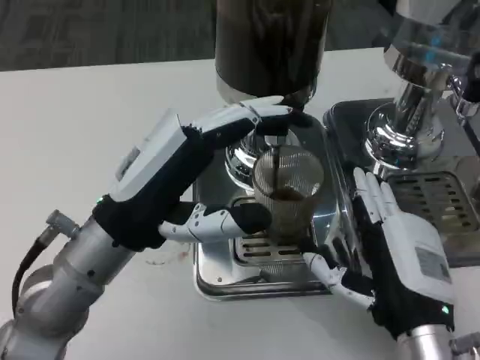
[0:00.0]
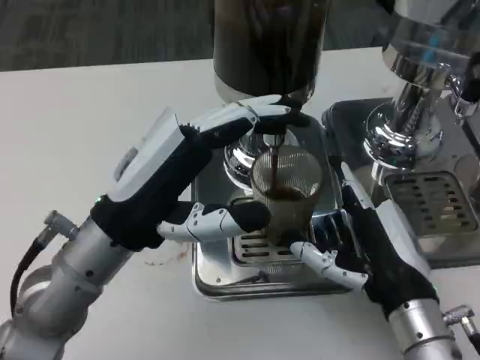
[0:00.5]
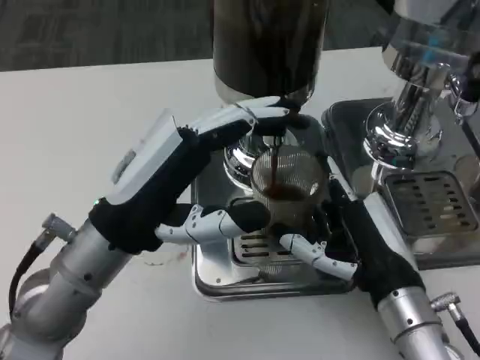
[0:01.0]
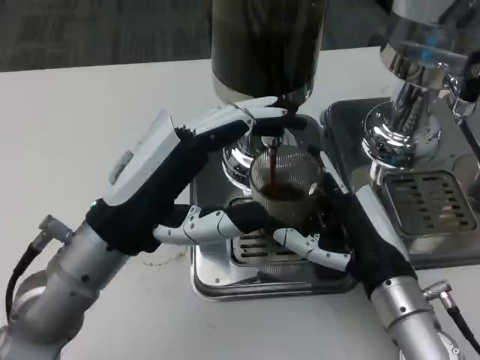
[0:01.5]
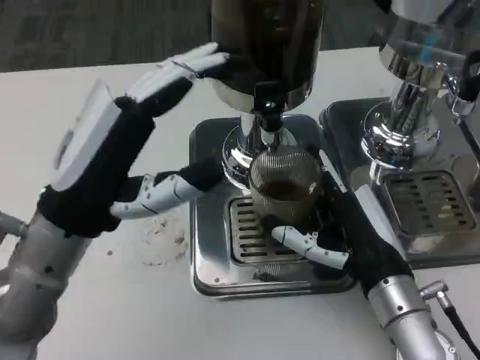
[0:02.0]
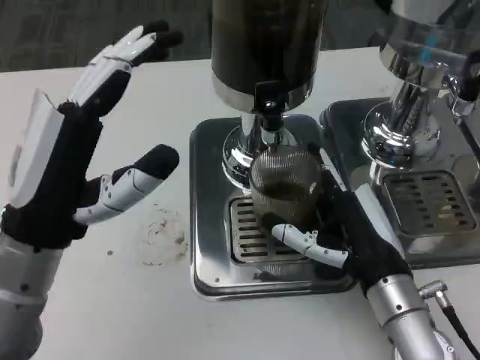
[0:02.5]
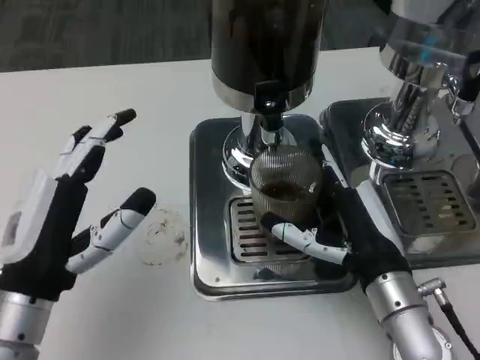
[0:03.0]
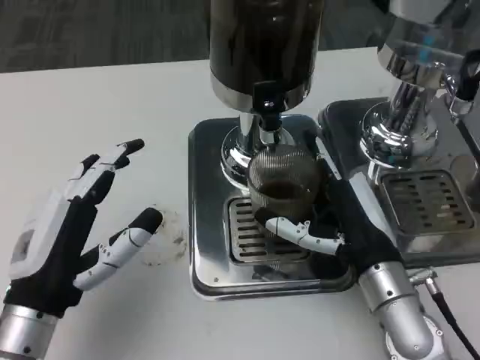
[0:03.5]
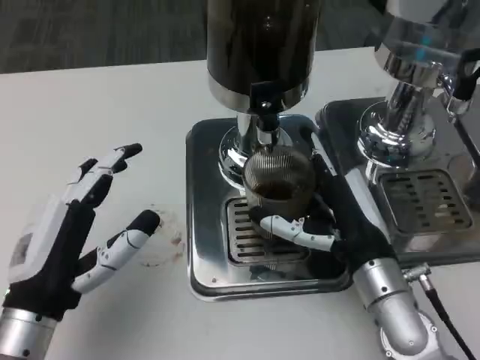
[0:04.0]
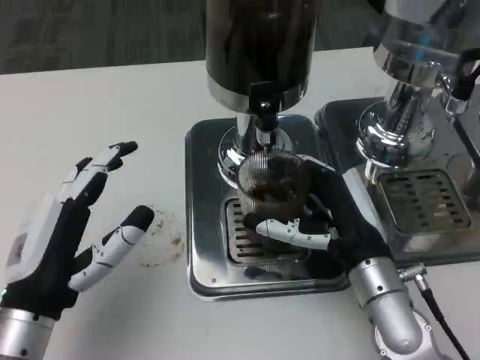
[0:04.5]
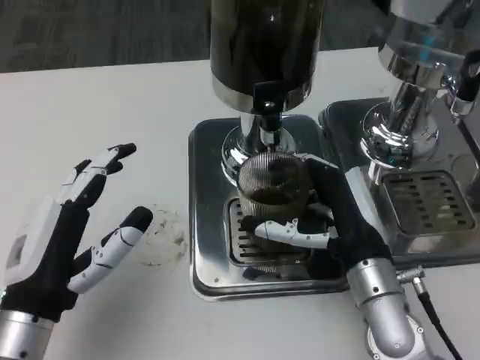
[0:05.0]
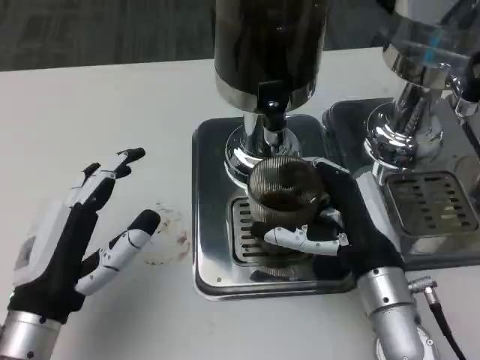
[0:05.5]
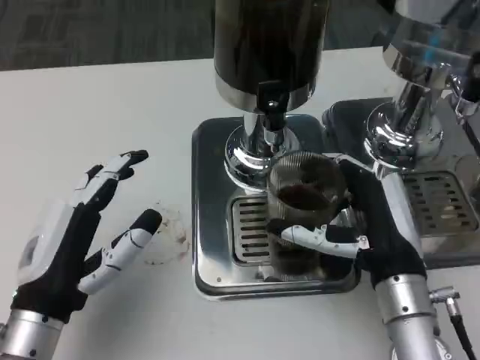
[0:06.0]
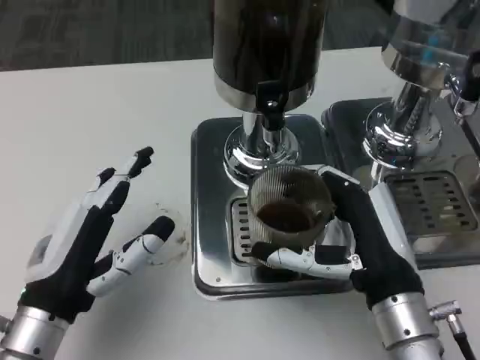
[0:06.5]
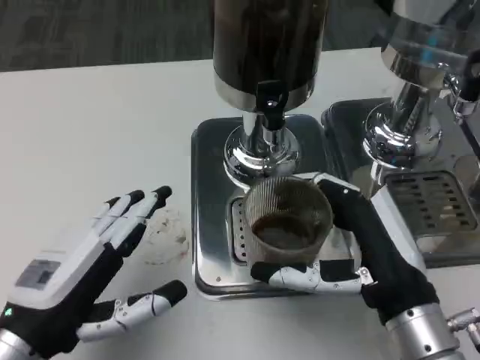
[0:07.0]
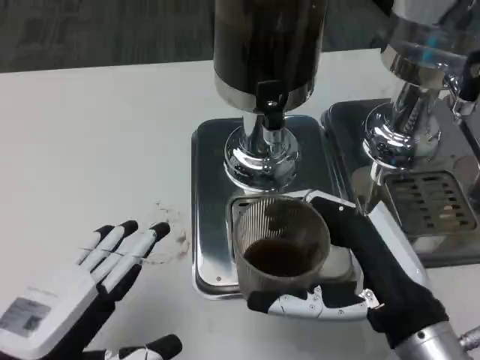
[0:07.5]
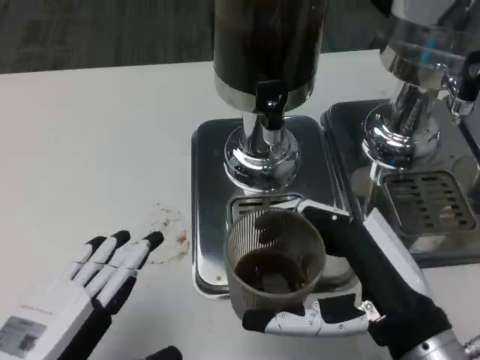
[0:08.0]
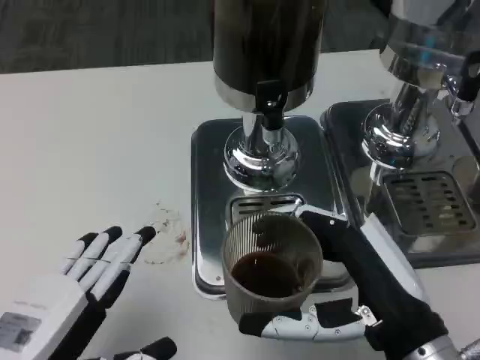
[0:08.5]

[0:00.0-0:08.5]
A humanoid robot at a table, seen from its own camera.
Task of the whole recording: Grasp the cup under the faucet to collect the drink, then remove the cup.
0.0 to 2.0 s: The right hand is displaced forward by approximately 5 cm.
2.0 to 4.0 s: The left hand is displaced downward and backward by roughly 10 cm.
4.0 to 6.5 s: The right hand heads backward, covering about 5 cm.
6.5 to 8.5 s: The left hand heads backward, covering some 10 cm; the right hand is displaced backward by about 5 cm.

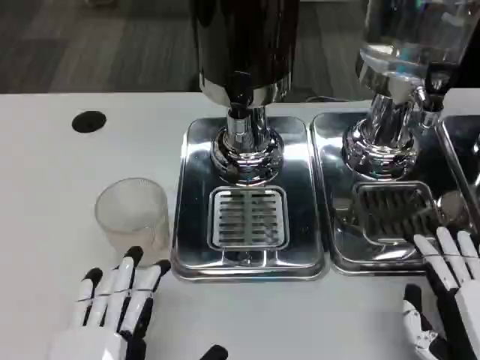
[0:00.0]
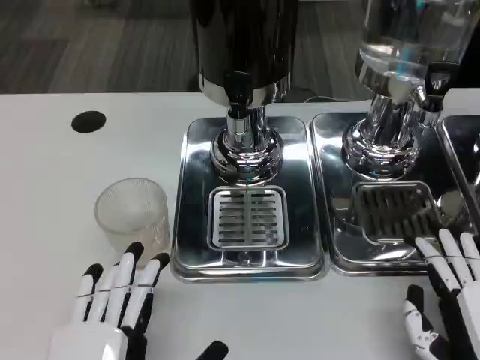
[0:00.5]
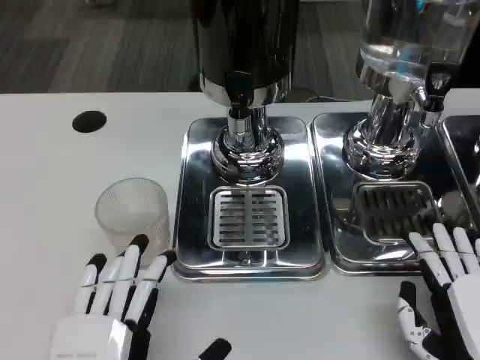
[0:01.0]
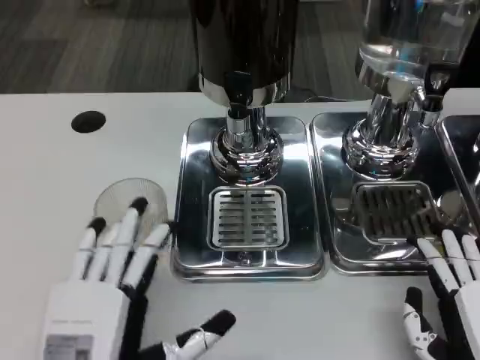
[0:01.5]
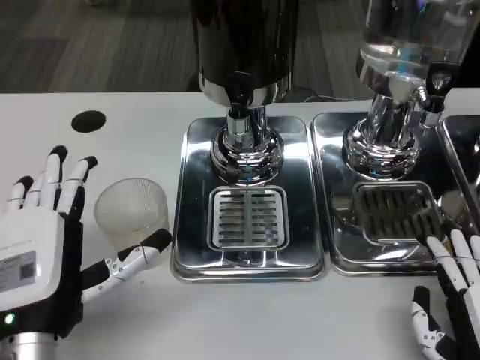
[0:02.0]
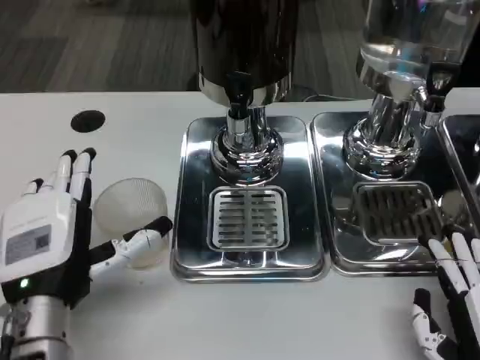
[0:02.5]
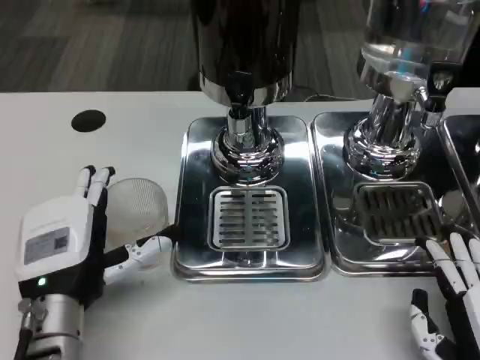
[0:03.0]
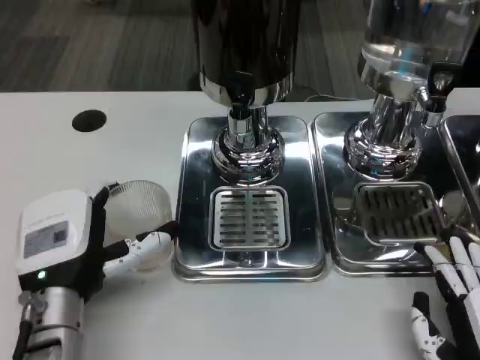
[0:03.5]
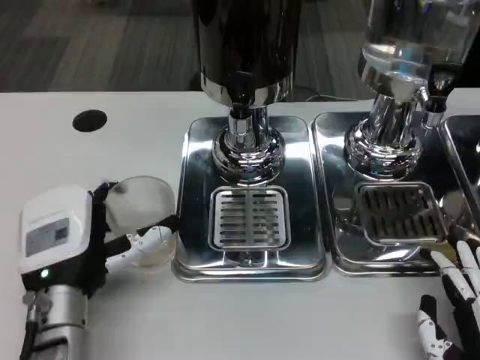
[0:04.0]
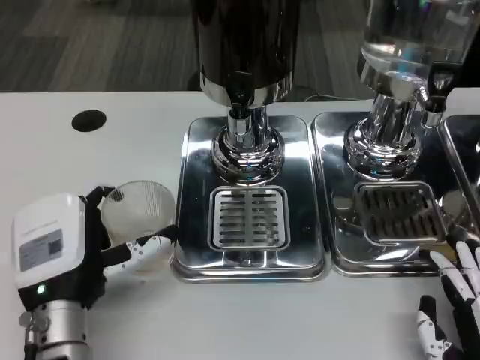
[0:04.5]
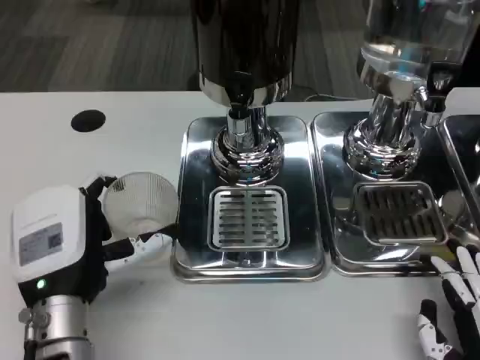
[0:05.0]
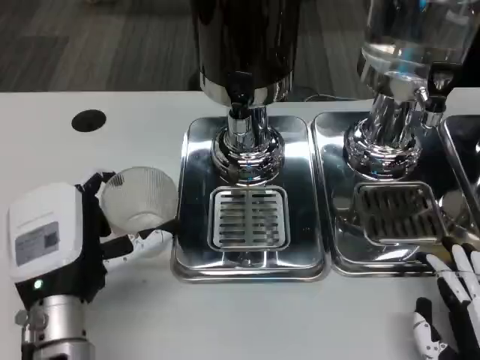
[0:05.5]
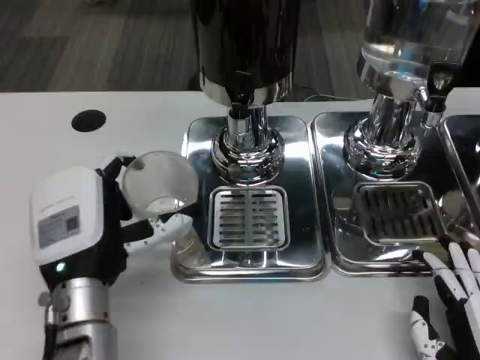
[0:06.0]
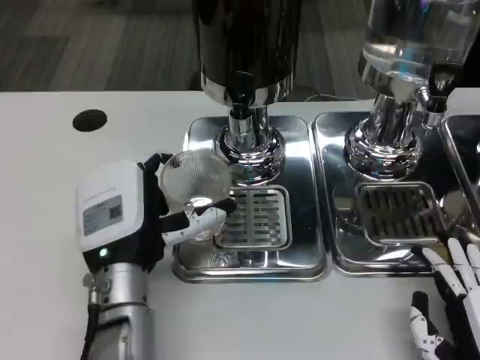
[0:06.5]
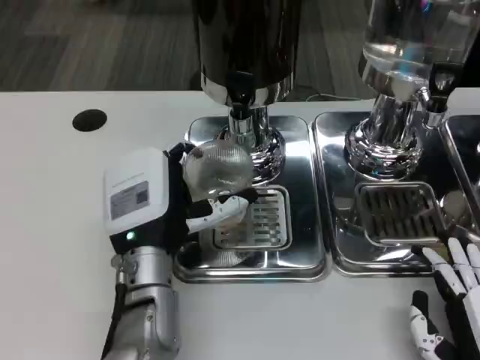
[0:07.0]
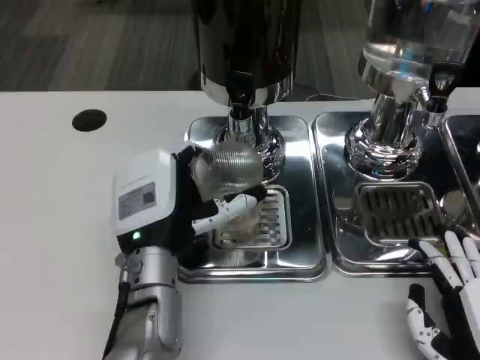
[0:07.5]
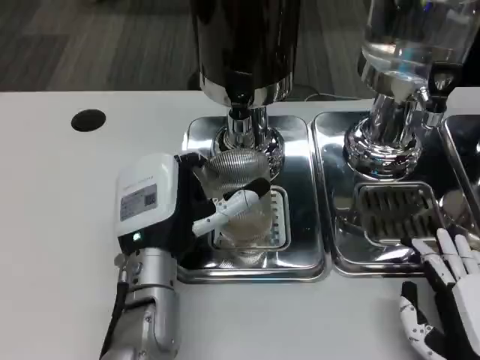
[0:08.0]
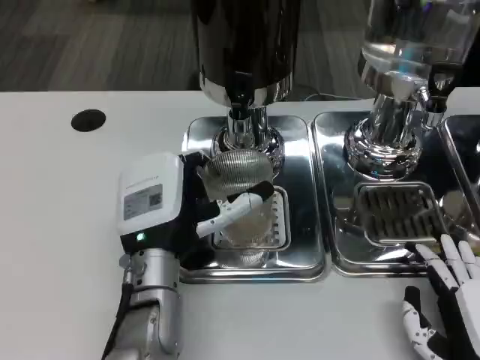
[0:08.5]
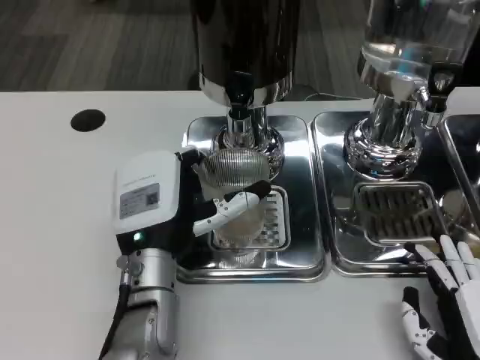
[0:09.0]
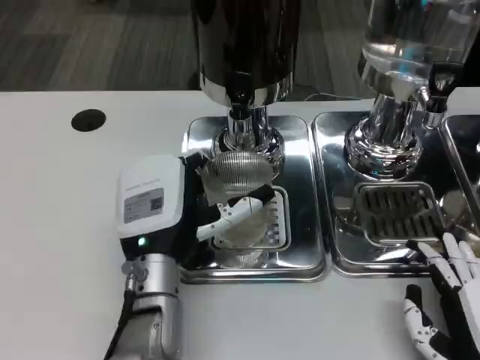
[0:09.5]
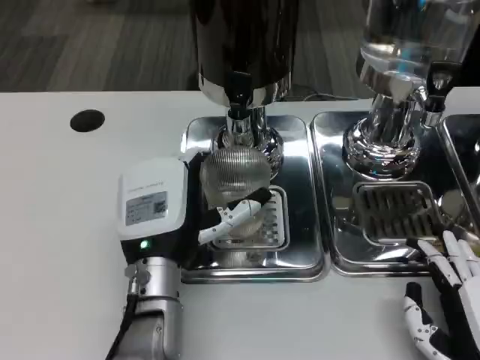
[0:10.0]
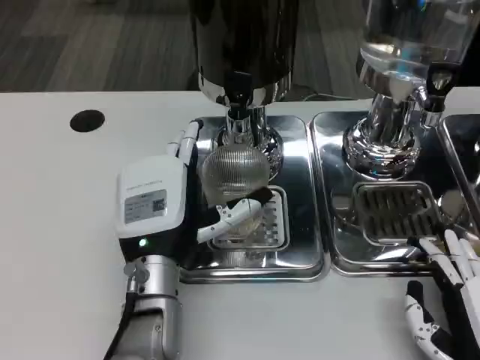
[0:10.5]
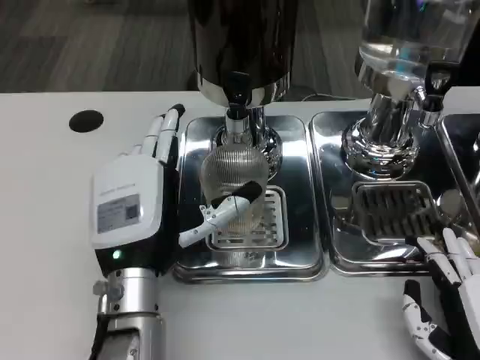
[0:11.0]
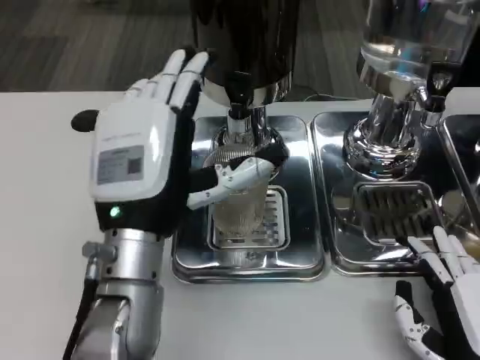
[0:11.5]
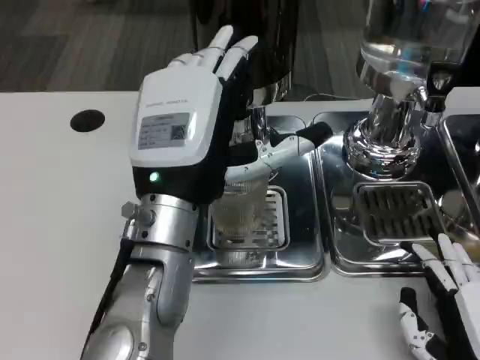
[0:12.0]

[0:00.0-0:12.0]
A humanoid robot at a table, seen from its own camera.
Task of the whole recording: Grasp the cup under the faucet to collect the drink, then remove the cup.
0.0 to 2.0 s: The left hand heads forward, covering approximately 10 cm.
2.0 to 4.0 s: The left hand ends up roughly 5 cm from where it was.
4.0 to 6.0 s: The hands move only a little.
6.0 to 8.0 s: The left hand moves about 5 cm.
8.0 to 10.0 s: The hands stay close to where they were, moving slightly.
10.0 to 12.0 s: The left hand shifts roughly 10 cm upward.

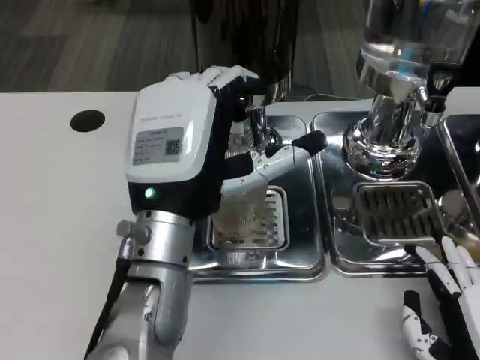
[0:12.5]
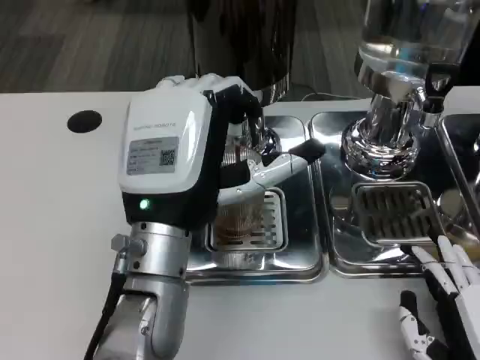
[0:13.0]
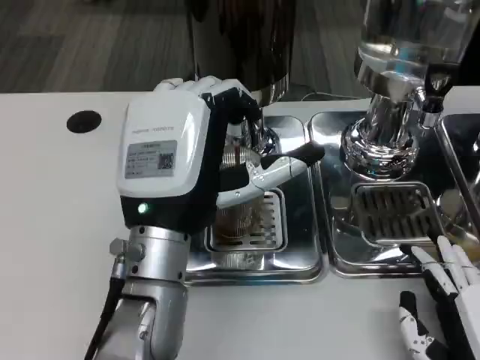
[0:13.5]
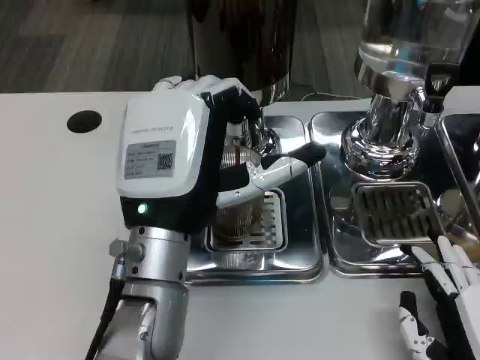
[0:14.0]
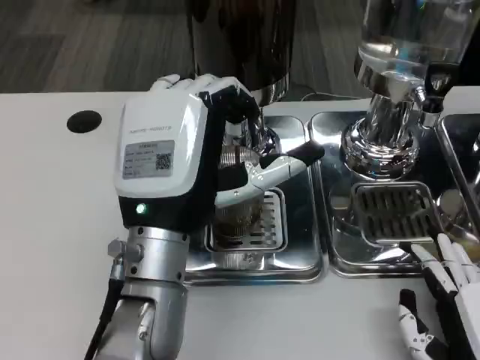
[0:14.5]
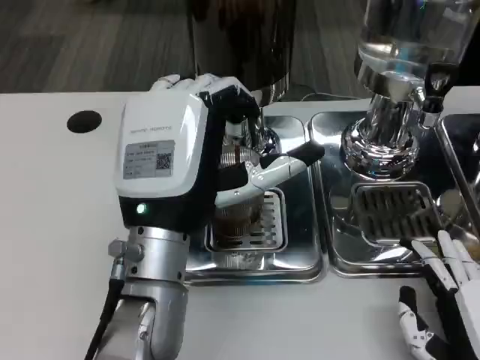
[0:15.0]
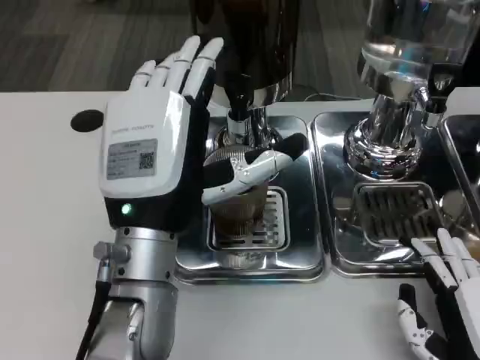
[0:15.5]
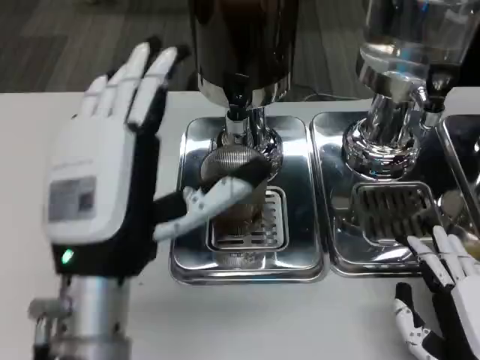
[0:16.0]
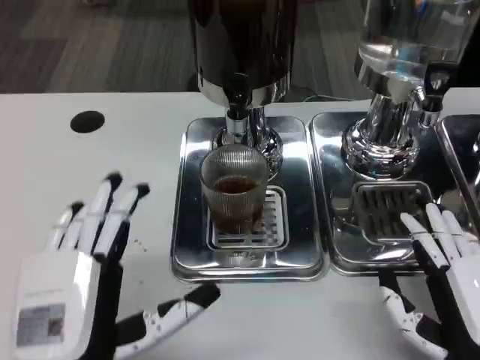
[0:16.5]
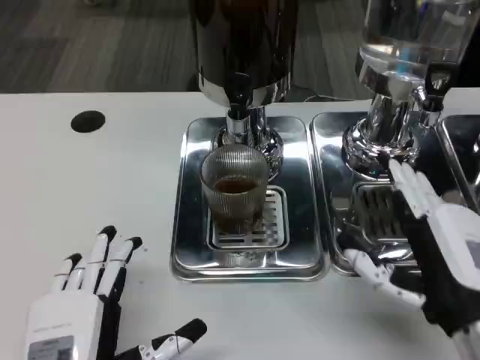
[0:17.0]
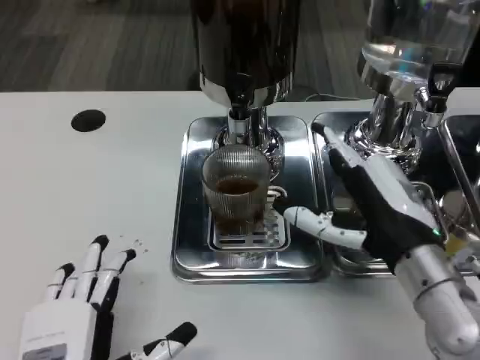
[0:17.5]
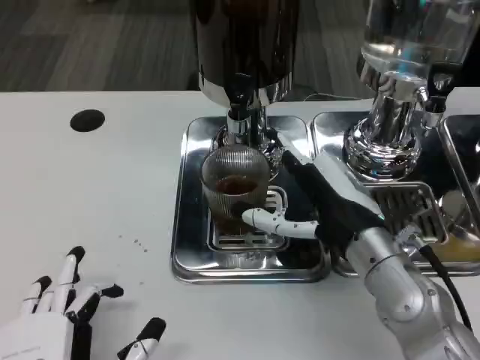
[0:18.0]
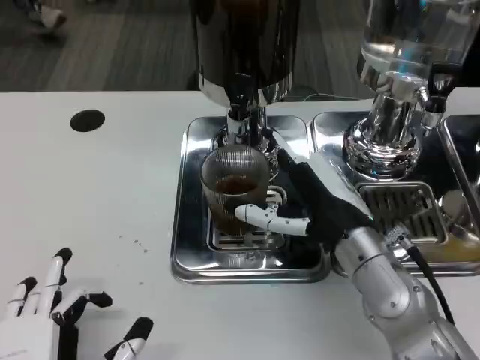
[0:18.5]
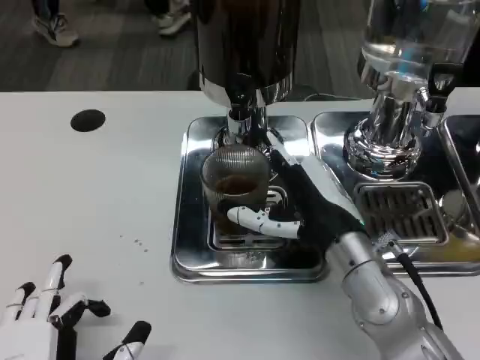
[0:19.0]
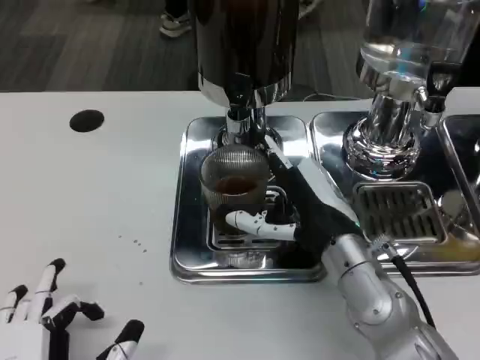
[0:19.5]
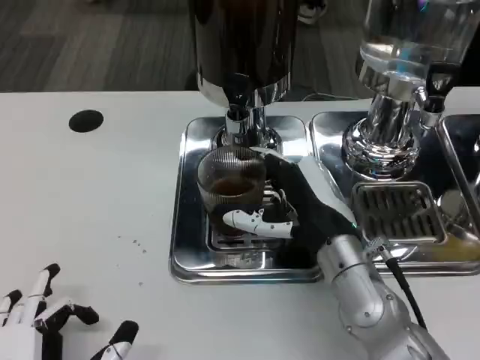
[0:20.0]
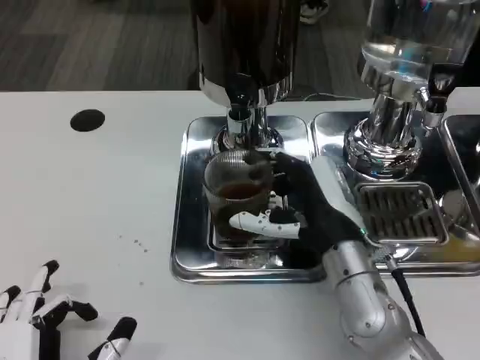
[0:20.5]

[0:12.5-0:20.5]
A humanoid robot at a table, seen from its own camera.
Task of the whole recording: Grasp the cup under the faucet to collect the drink, then remove the cup.
14.5 to 16.5 s: The left hand goes roughly 15 cm backward, downward and to the left.
16.5 to 18.5 s: The left hand ends up some 5 cm from where it was, while the right hand is displaced forward, to the left and upward by approximately 15 cm.
18.5 to 20.5 s: There are only small adjustments of the hands.
